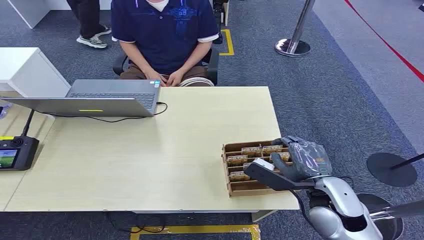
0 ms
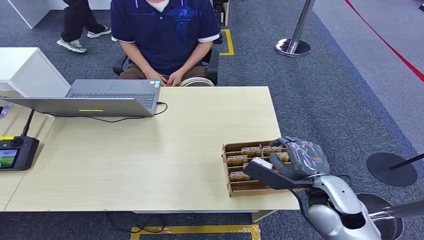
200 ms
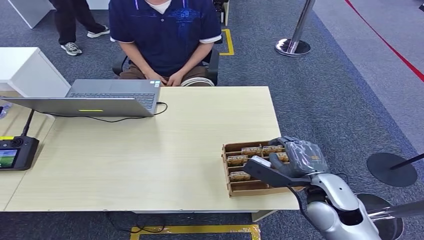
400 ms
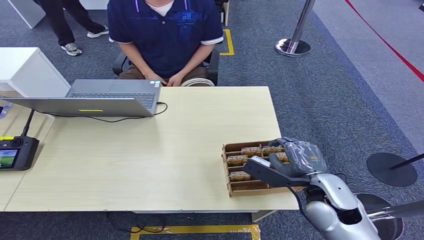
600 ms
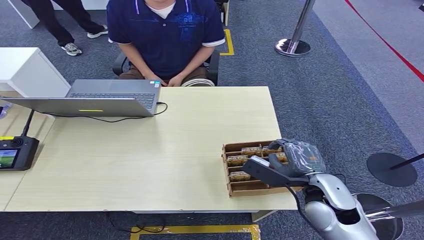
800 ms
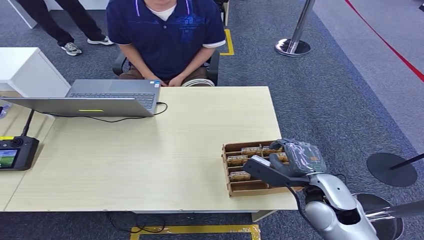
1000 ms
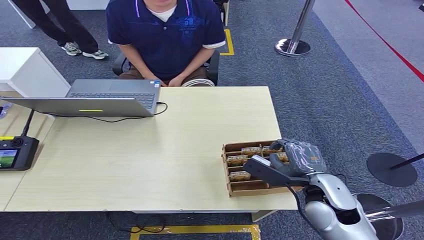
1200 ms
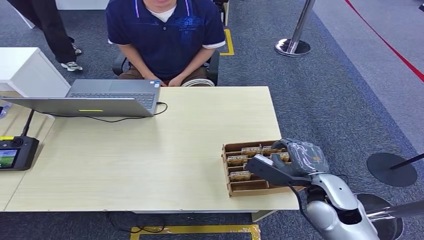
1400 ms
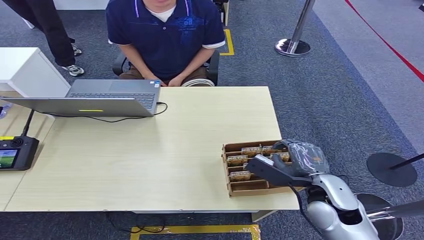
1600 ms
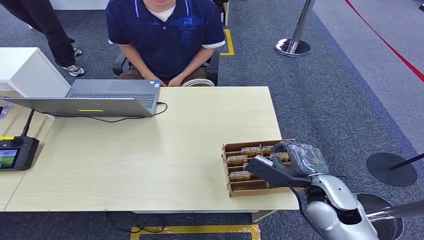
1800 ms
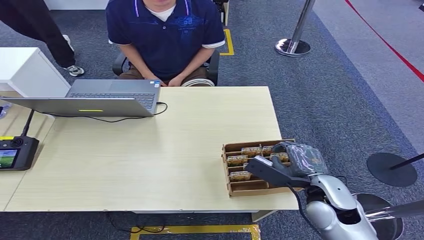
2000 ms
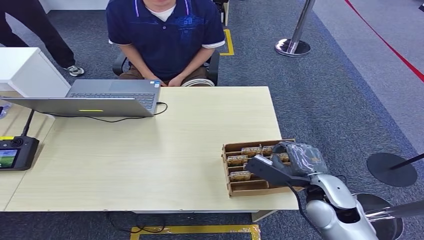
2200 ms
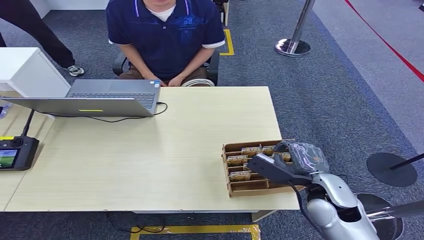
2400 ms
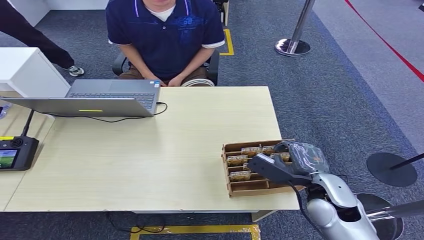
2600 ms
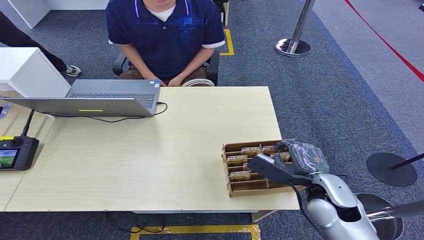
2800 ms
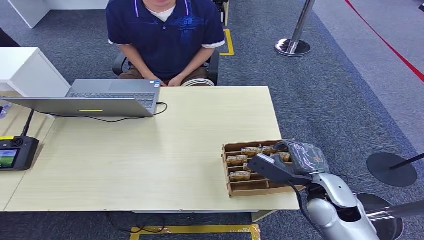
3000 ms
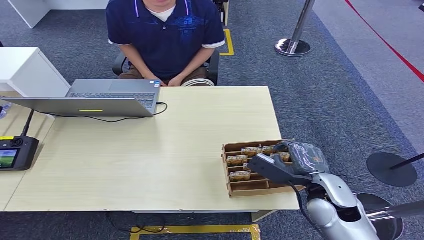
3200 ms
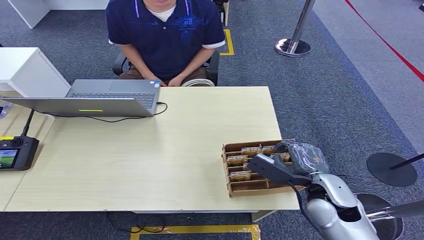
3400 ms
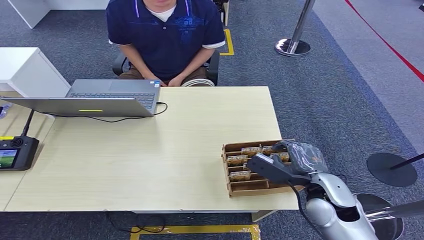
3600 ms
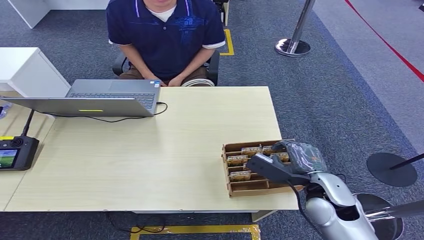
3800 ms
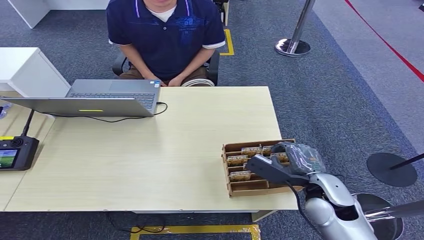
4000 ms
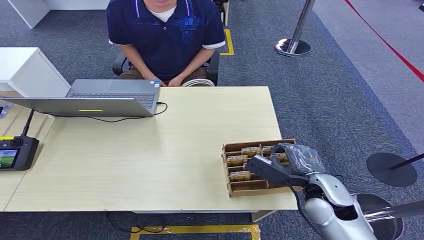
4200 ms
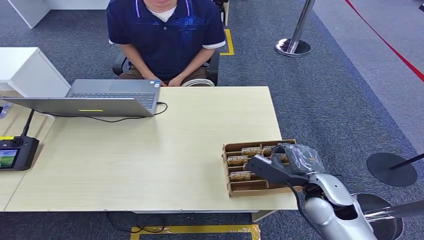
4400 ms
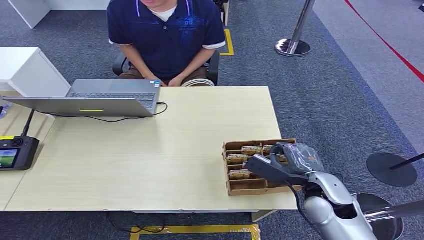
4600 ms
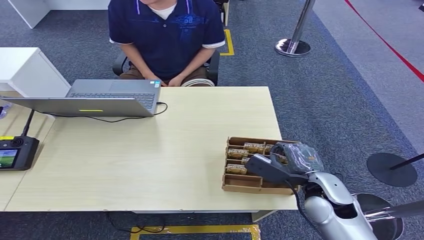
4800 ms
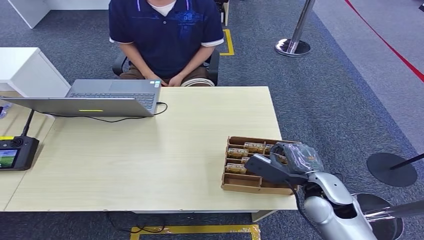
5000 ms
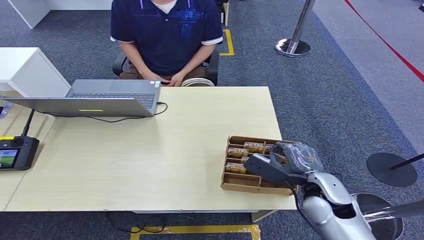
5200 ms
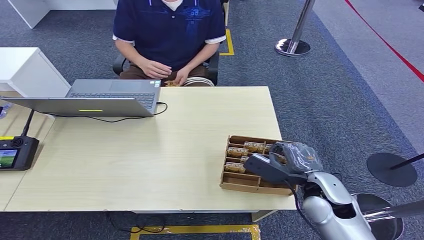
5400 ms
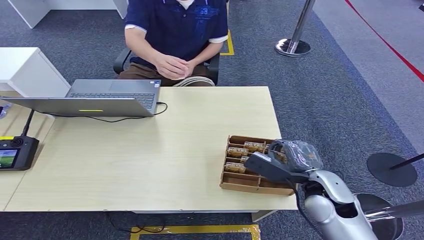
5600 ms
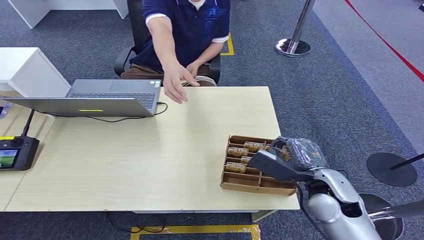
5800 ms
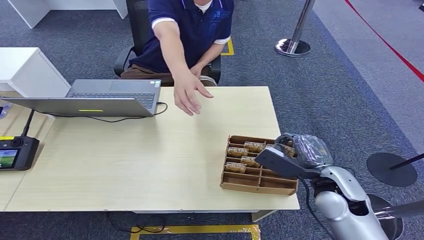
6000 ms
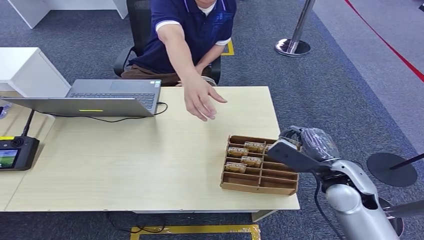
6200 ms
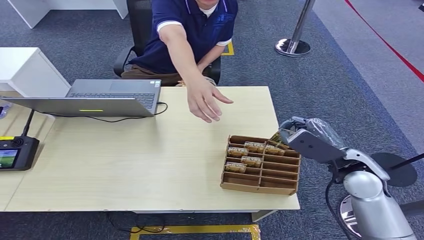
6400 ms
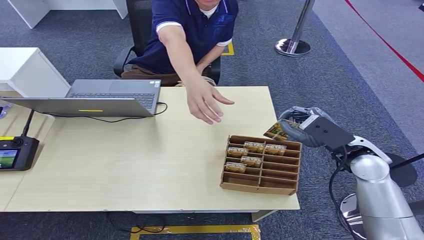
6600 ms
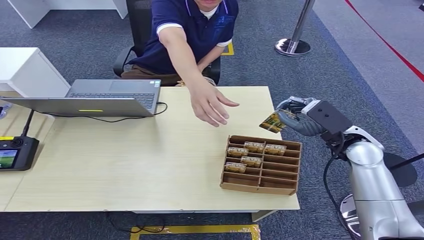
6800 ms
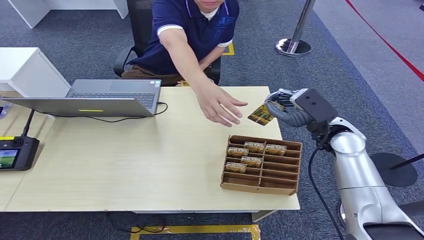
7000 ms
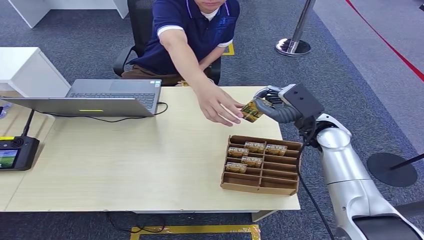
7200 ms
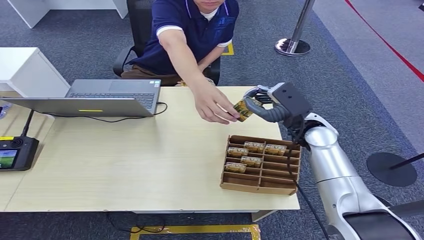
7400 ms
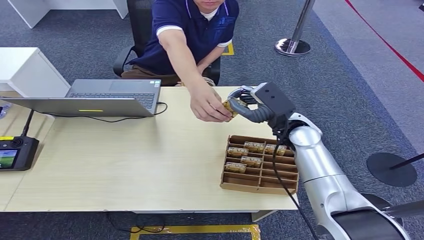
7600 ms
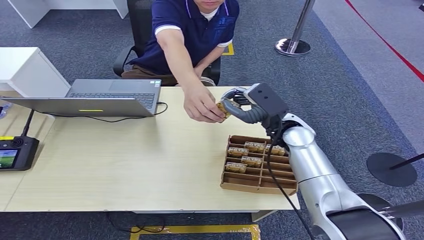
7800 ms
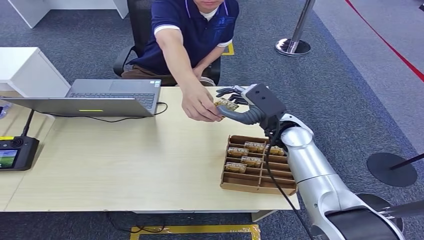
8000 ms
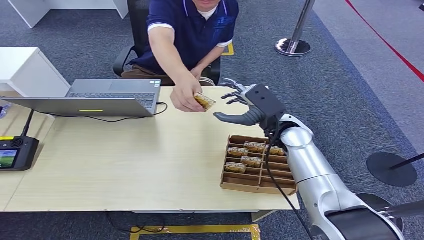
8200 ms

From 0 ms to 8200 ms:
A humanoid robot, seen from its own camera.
Step, from 0 ms to 6800 ms: Pick up the key card from the card box.
Step, from 7000 ms to 8200 ms: Hand the key card to the target.
From 1600 ms to 3200 ms: The two hands keep their place.
From 3200 ms to 5000 ms: Neither hand changes place.
From 5000 ms to 6600 ms: The right hand goes approximately 10 cm upward, forward and to the right.
From 6600 ms to 8200 ms: The right hand is displaced to the left and forward by approximately 15 cm.
